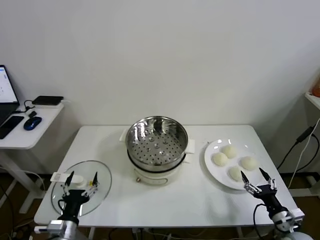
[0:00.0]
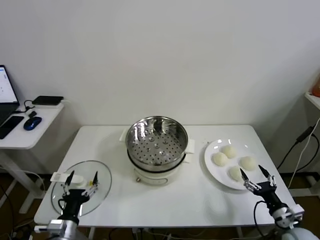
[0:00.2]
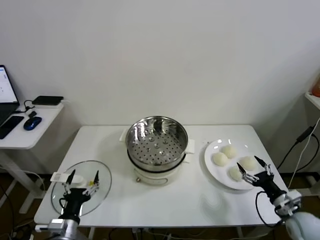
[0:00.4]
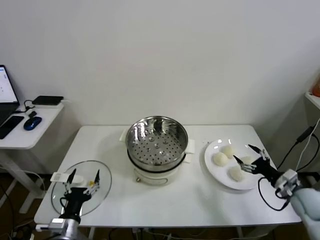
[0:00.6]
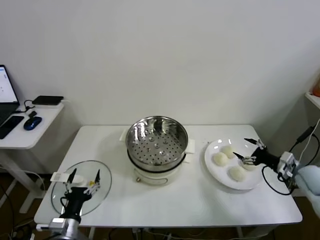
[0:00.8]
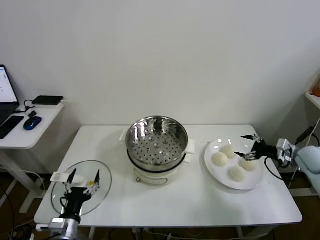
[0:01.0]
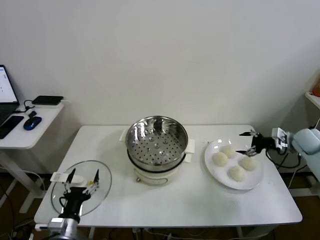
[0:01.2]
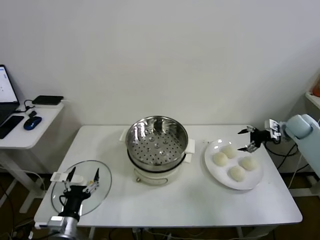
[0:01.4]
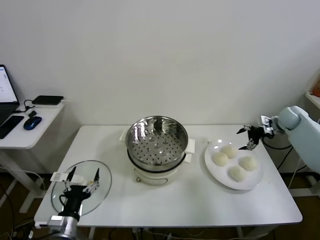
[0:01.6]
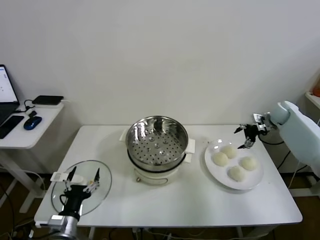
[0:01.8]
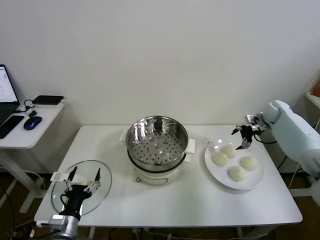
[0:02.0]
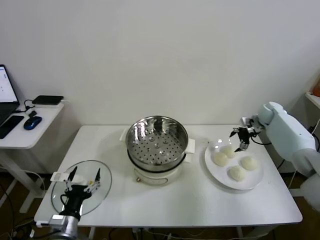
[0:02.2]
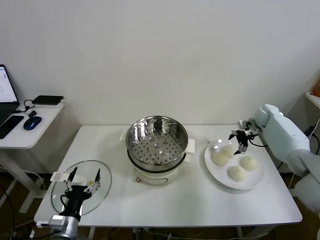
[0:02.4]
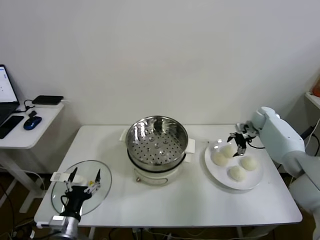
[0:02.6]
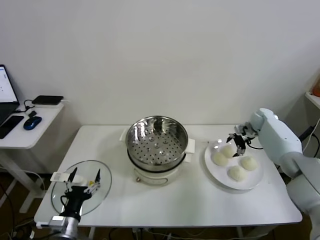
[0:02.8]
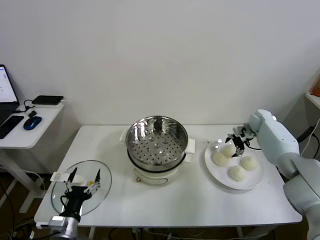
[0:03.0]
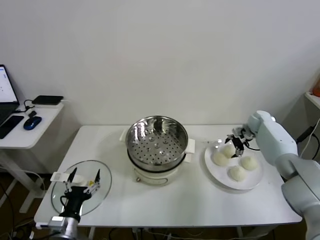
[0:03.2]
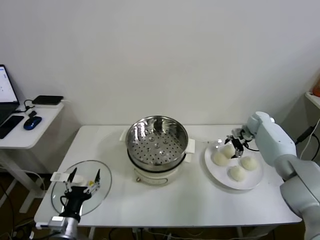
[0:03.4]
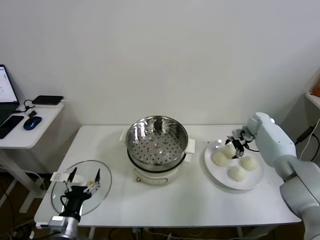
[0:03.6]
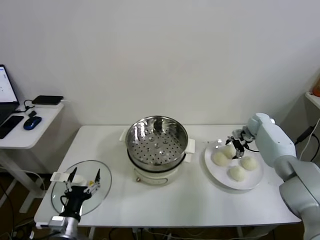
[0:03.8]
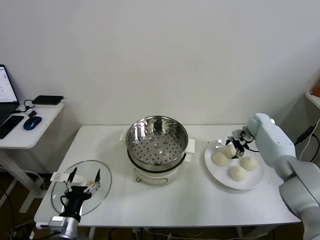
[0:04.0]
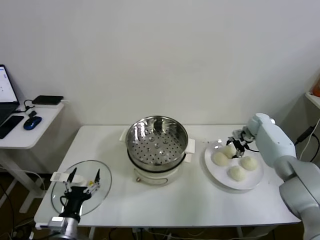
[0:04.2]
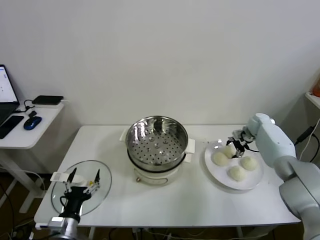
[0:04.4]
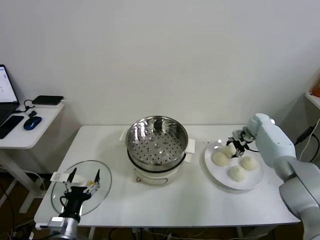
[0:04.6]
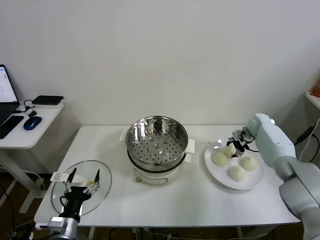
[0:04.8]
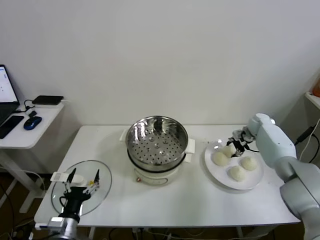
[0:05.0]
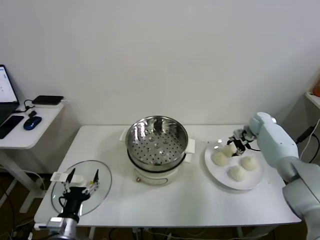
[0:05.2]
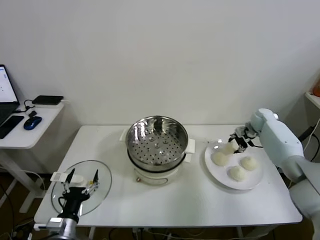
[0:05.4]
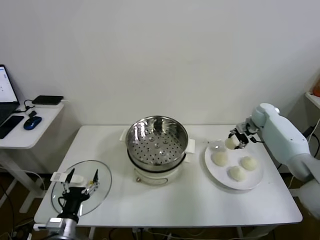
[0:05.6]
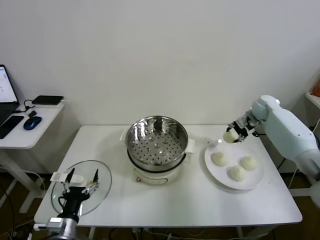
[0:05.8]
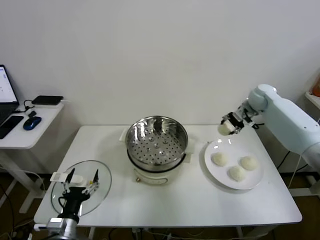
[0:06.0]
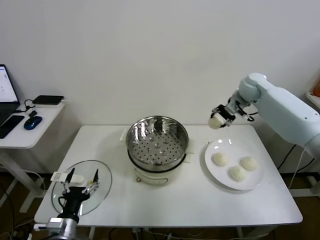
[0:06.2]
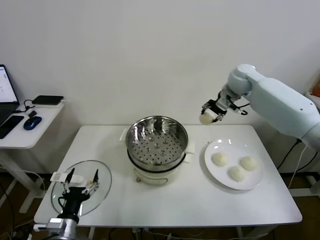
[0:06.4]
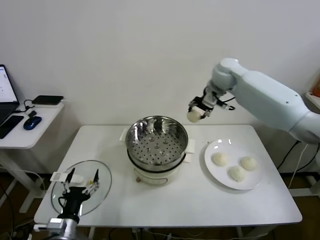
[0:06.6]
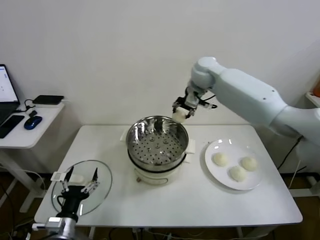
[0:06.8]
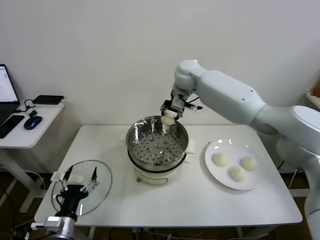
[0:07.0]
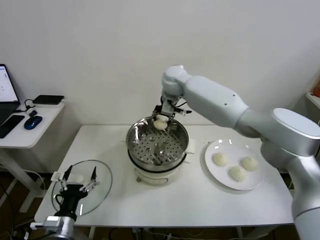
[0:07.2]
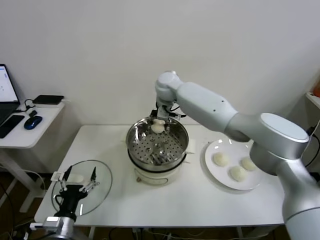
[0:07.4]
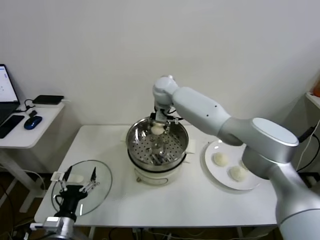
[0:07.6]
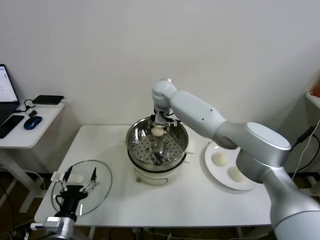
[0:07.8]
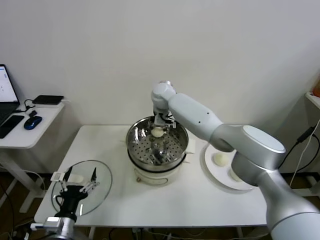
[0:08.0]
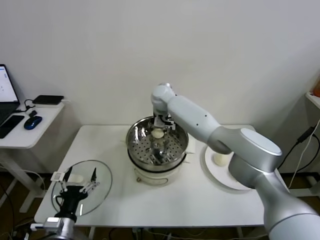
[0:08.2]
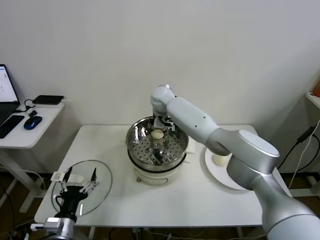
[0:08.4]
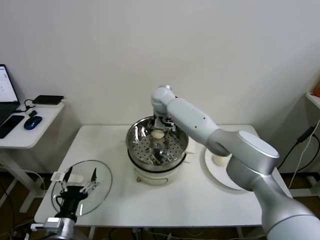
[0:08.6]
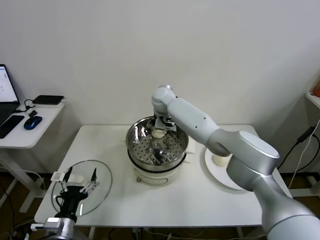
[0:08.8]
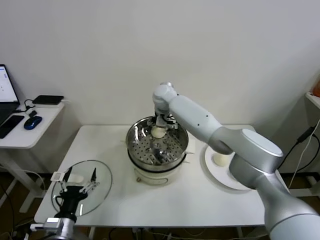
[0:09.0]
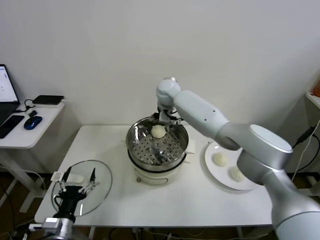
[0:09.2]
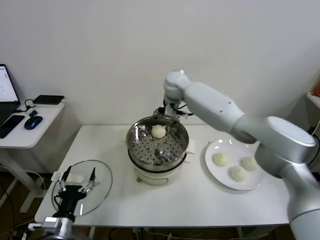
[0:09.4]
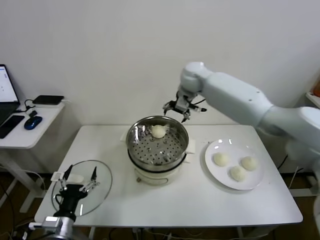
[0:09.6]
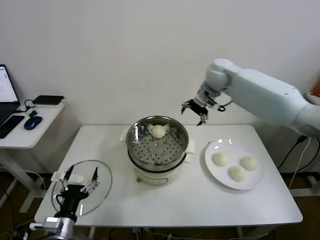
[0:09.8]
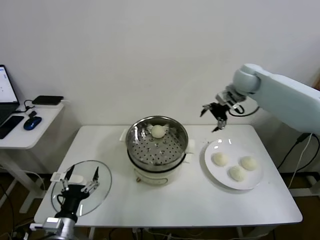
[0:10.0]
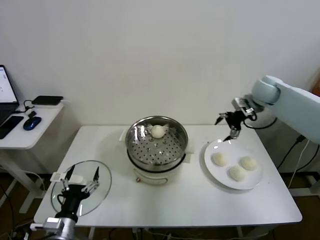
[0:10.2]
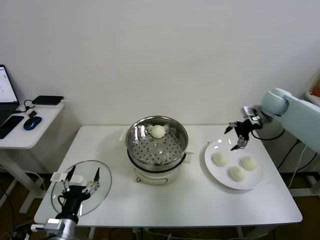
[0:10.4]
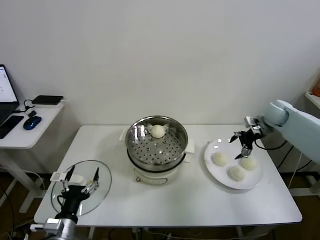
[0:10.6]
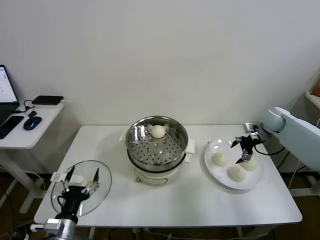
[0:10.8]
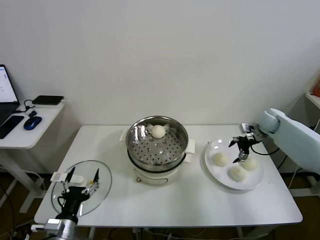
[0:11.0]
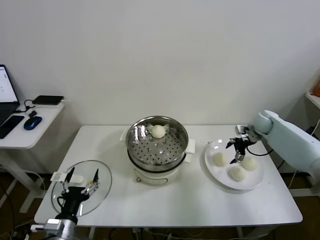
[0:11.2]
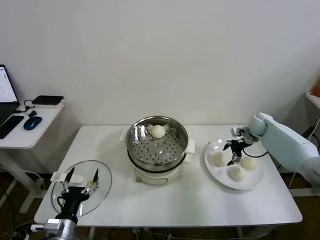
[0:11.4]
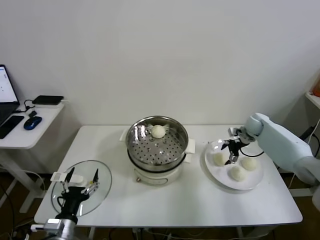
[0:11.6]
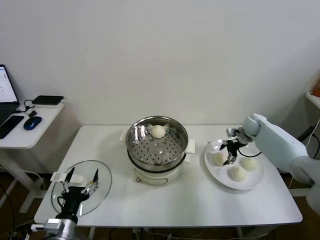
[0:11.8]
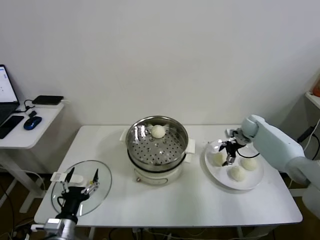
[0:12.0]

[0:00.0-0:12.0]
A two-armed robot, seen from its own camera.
Task of the whole recording: take steamed baozi put them in steamer.
Step, 0:00.0 to 0:04.6: Grasp the baozi in the plate with right gripper.
Step, 0:04.8 to 0:09.0: Place the baozi on the steamer with right gripper.
0:01.6 to 0:03.0: The right gripper is displaced downward and to the left by about 10 cm.
0:03.0 to 0:04.4: The right gripper closes.
0:04.4 to 0:06.0: The right gripper heads upward and to the left, covering roughly 20 cm, and closes up.
0:06.0 to 0:07.6: The right gripper is displaced to the left by some 35 cm.
0:07.6 to 0:09.0: The right gripper opens its fingers.
0:09.0 to 0:10.4: The right gripper shifts some 40 cm to the right.
0:10.4 to 0:12.0: The right gripper goes some 15 cm downward.

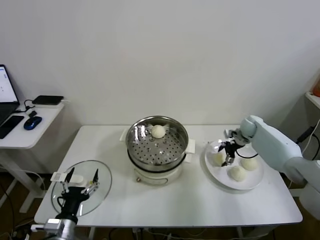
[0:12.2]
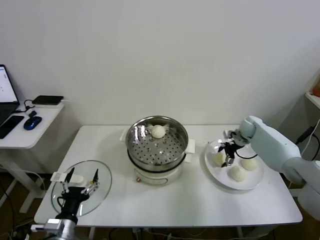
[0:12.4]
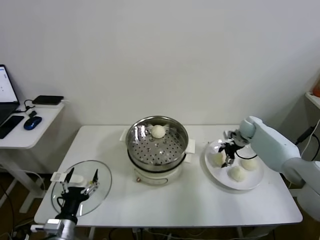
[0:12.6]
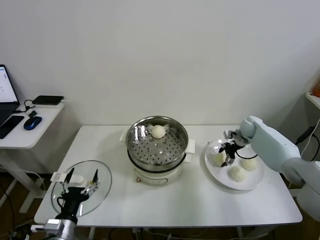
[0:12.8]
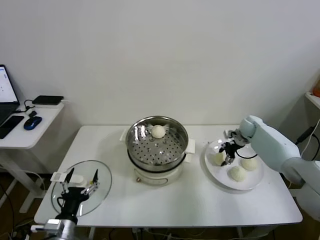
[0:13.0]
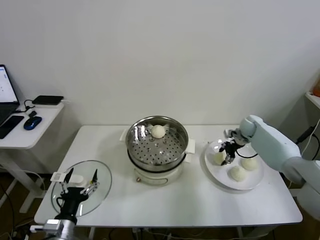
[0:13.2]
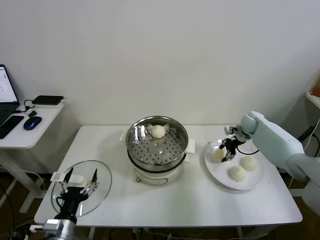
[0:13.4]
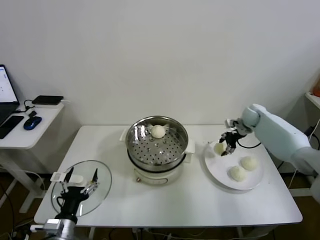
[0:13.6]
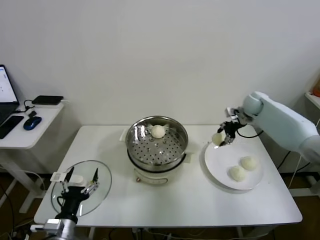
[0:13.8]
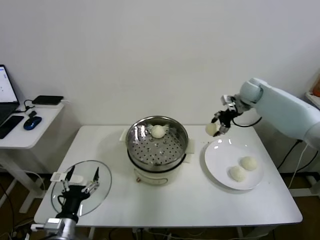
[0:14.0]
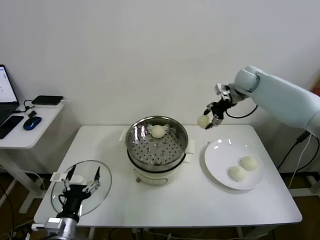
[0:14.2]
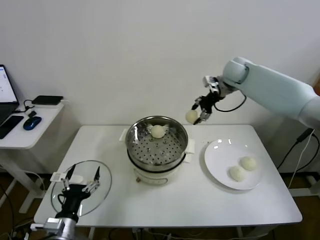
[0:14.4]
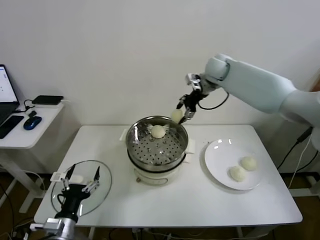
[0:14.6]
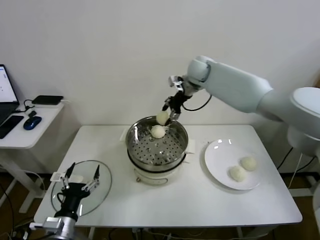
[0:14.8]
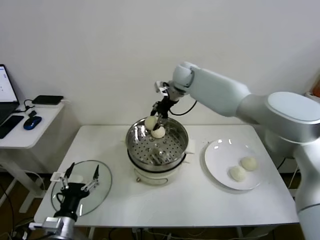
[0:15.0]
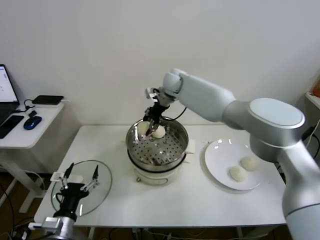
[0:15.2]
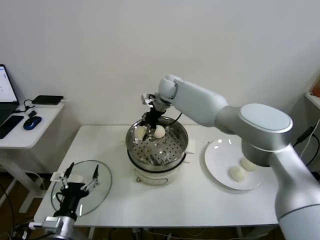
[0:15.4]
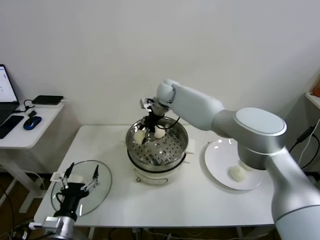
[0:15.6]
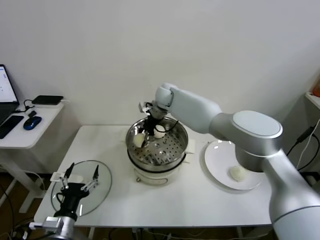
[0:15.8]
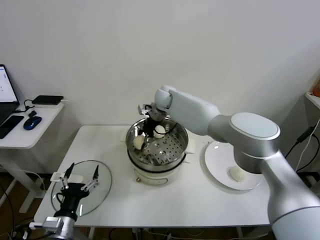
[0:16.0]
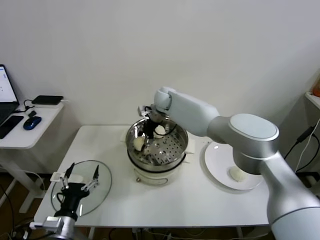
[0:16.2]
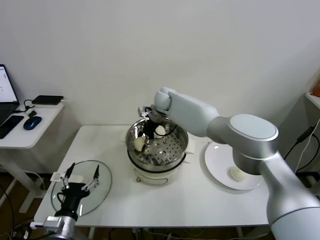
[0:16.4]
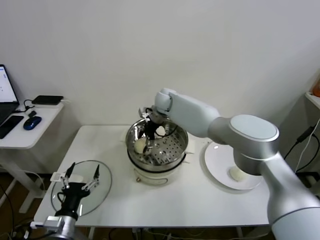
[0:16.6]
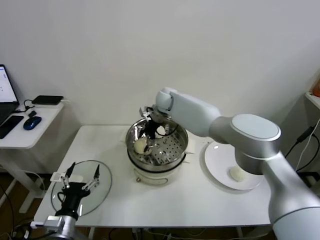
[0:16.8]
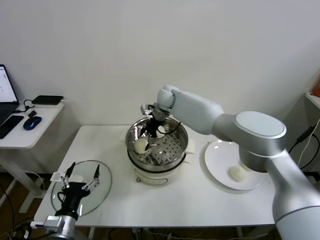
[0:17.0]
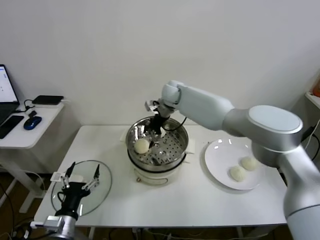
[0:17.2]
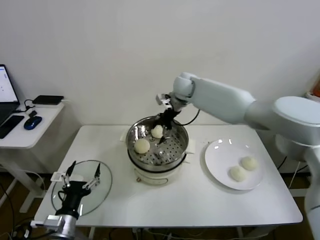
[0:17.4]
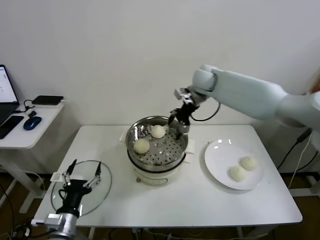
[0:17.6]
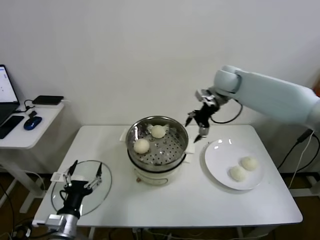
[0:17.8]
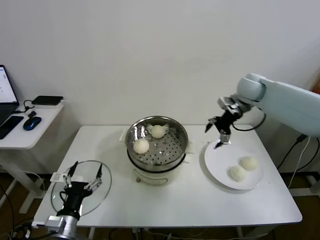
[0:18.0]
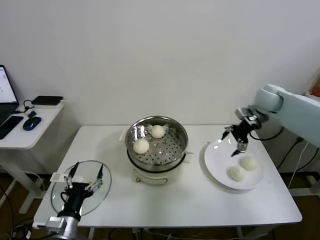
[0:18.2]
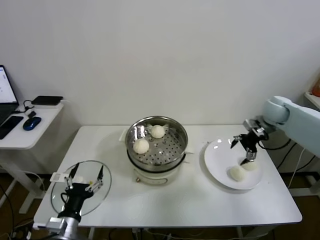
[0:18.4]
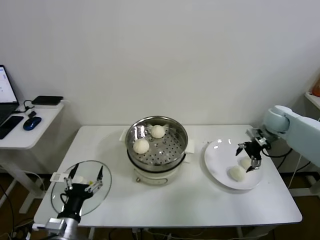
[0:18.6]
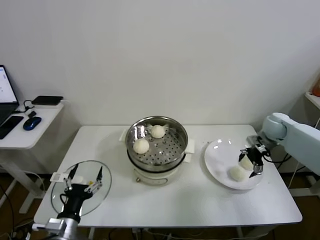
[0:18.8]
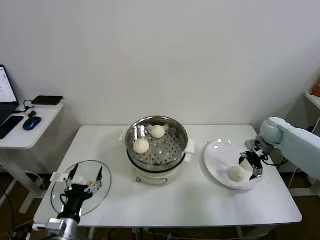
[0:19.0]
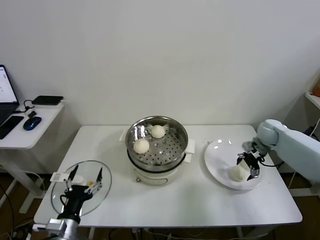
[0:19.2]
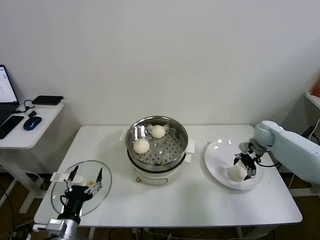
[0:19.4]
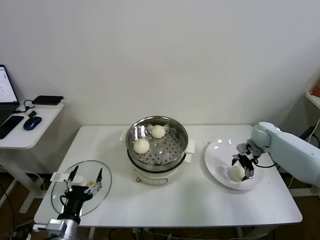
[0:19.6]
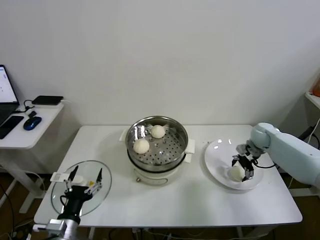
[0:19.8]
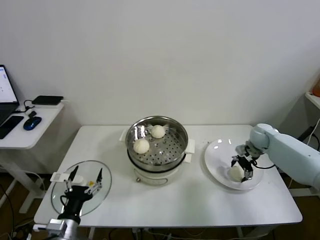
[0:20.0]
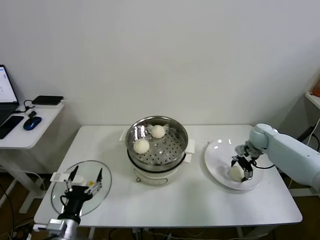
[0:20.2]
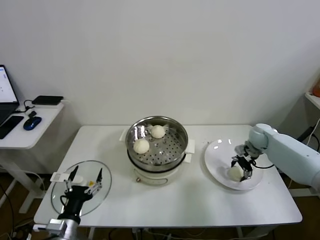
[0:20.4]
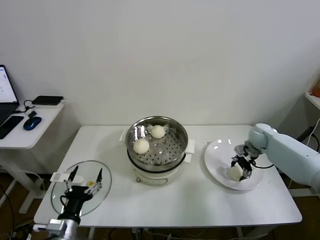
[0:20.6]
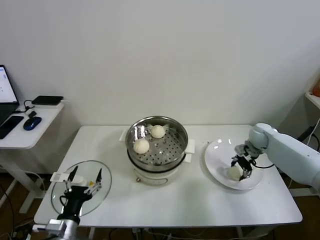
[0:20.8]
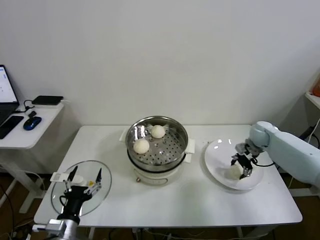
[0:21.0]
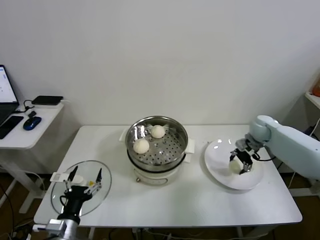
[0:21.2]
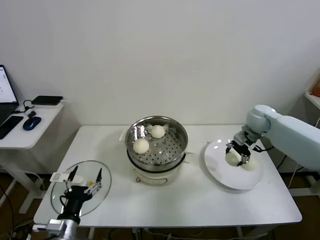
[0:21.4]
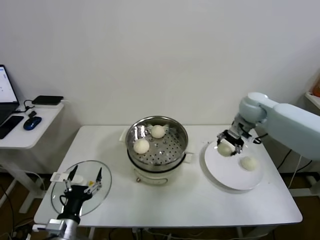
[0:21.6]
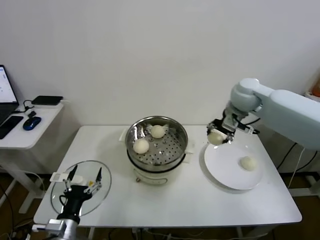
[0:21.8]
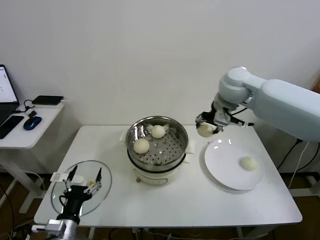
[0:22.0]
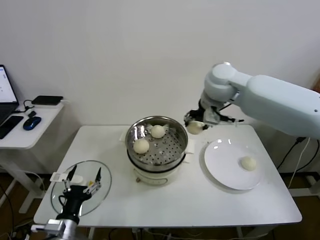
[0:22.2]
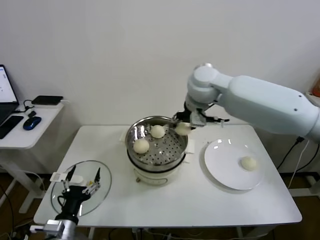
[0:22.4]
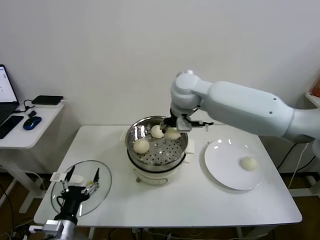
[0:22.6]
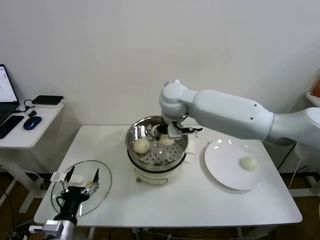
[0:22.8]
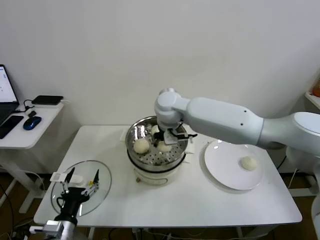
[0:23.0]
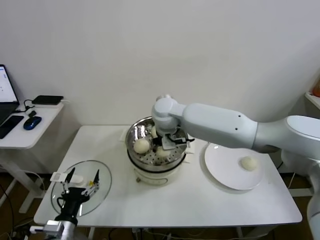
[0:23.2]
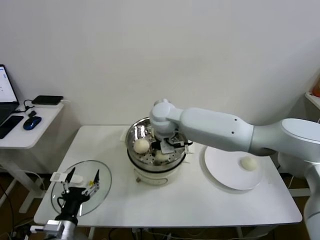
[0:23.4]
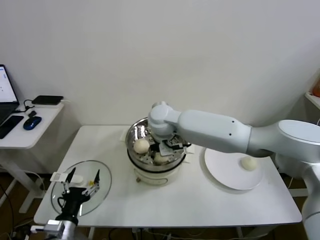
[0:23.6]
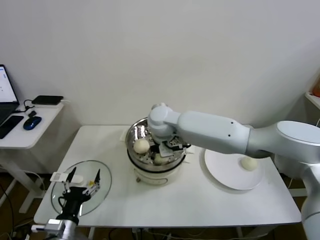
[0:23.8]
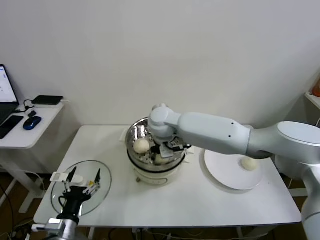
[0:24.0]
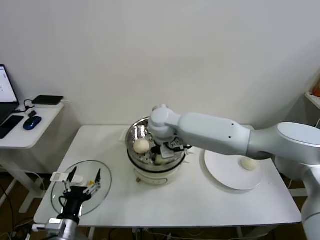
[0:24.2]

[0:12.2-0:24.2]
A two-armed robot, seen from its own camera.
Task of the whole recording: take steamed baozi put them in steamer.
Step, 0:13.0 to 0:17.0: Place the baozi on the steamer with right gripper.
Step, 0:17.2 to 0:20.6: Grasp the baozi in the plate with right gripper.
0:12.2 to 0:13.8: The right gripper shifts about 15 cm upward, and closes.
0:13.8 to 0:15.2: The right gripper moves to the left, about 30 cm.
0:15.2 to 0:16.6: The right gripper moves downward, some 5 cm, and opens its fingers.
0:16.6 to 0:18.2: The right gripper moves to the right, roughly 35 cm.
0:18.2 to 0:19.8: The right gripper shifts about 15 cm downward.
0:19.8 to 0:21.2: The right gripper closes up.
0:21.2 to 0:22.6: The right gripper moves to the left and upward, approximately 40 cm.
0:22.6 to 0:24.2: The right gripper is displaced downward and to the left by roughly 15 cm.
